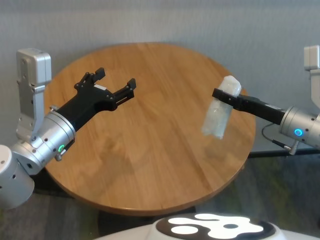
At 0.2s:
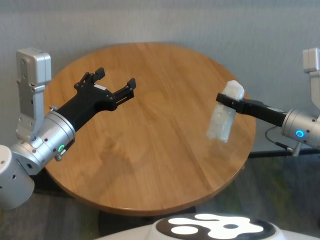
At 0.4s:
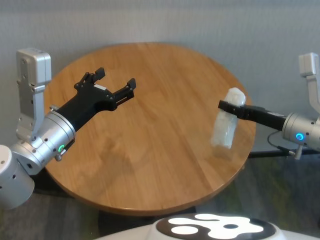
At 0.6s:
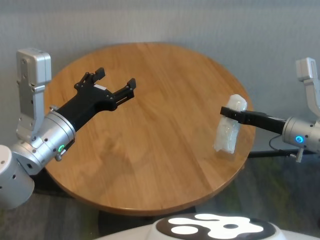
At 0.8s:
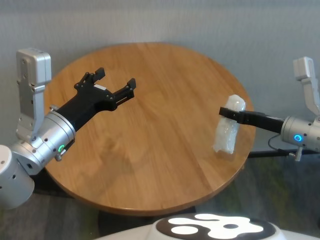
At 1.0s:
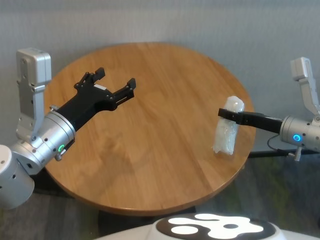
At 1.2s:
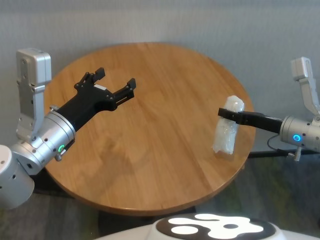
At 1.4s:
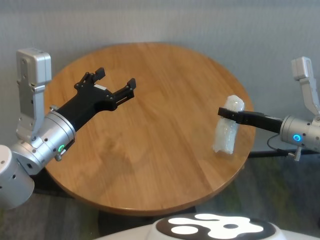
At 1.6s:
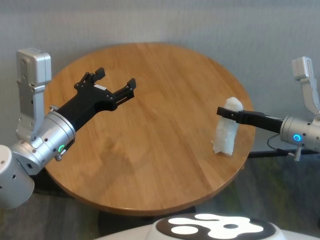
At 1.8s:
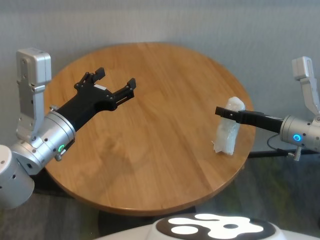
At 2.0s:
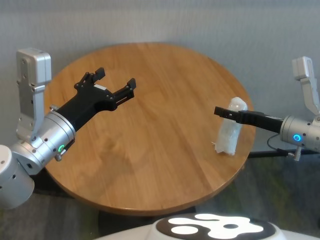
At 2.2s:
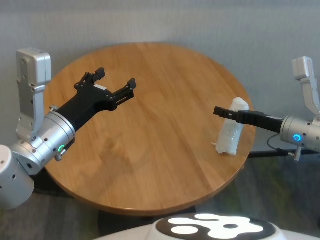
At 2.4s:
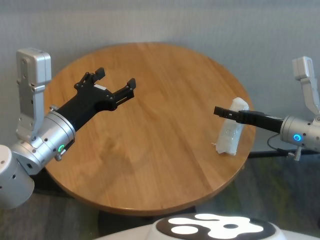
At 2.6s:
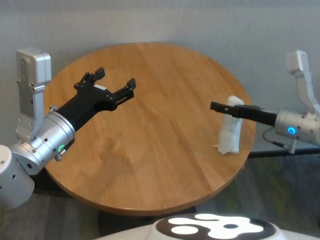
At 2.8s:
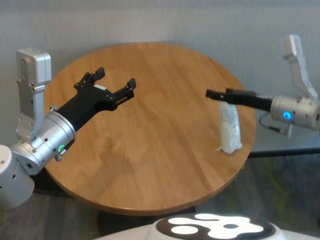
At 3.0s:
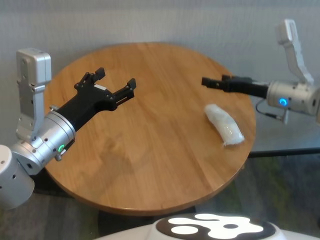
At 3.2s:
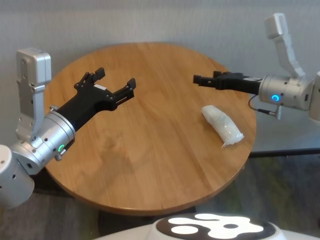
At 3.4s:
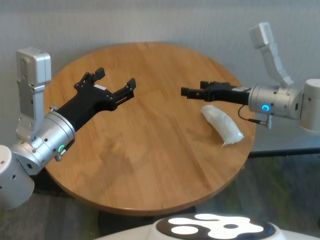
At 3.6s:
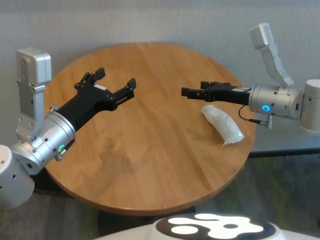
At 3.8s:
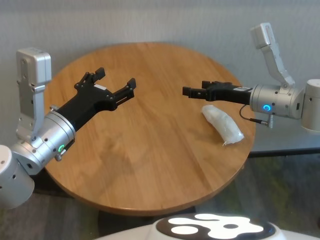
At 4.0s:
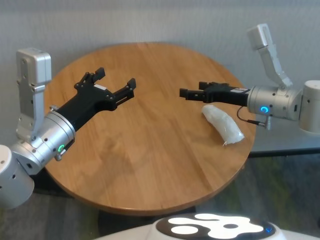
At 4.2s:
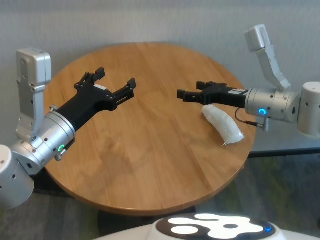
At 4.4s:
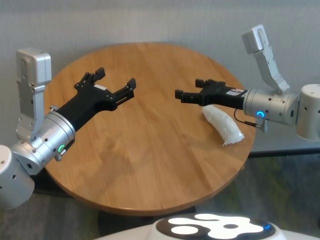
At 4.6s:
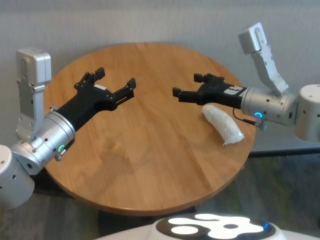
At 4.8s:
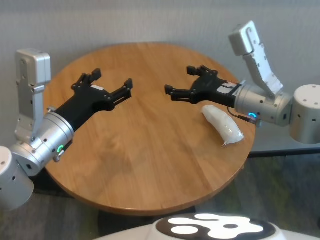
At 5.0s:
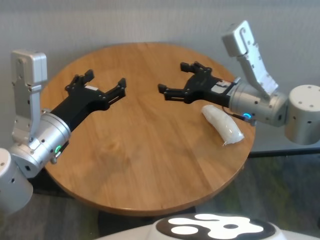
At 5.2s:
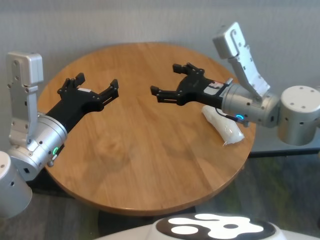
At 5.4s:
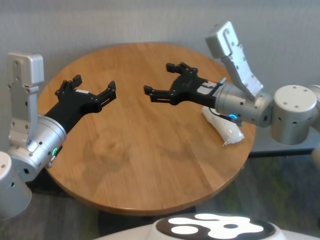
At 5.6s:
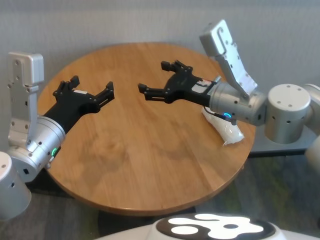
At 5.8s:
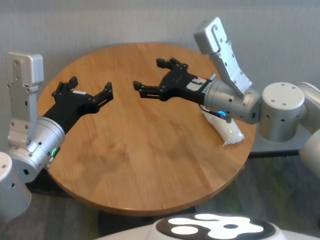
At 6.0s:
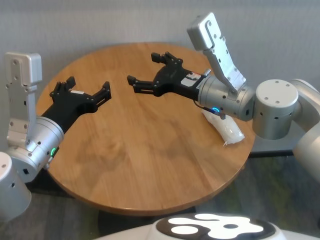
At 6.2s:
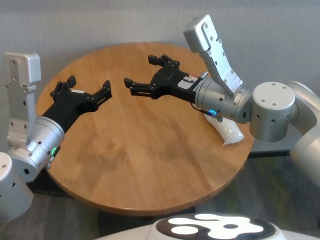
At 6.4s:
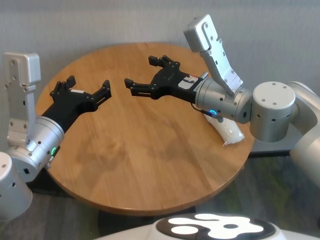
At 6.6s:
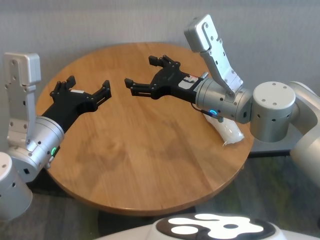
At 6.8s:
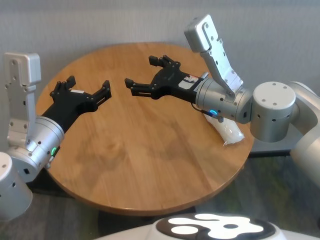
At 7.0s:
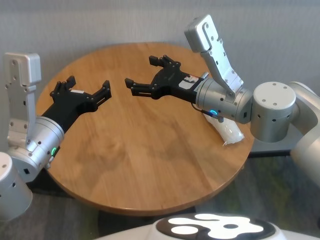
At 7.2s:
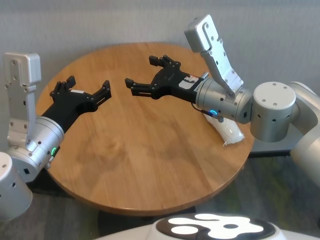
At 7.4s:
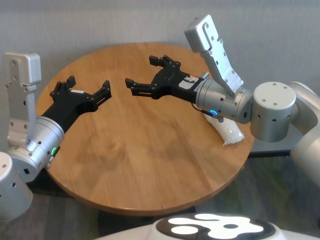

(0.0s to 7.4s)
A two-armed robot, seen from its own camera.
Task of the whole recording: One hand took the sandbag from the other hand and placed it on the table.
Step, 0.0s - 2.8s: Place the paper ball on the table with right gripper.
